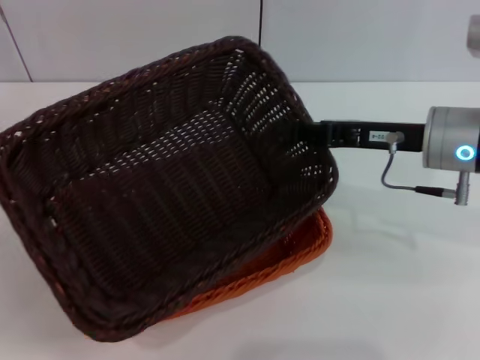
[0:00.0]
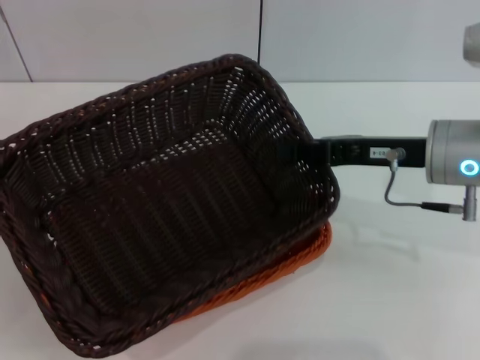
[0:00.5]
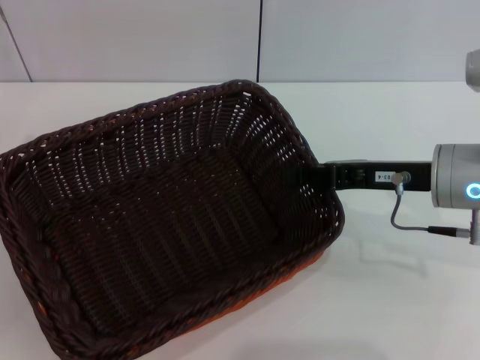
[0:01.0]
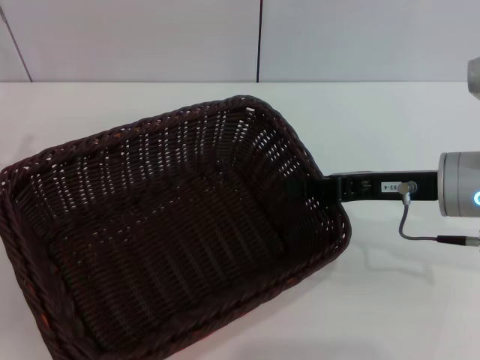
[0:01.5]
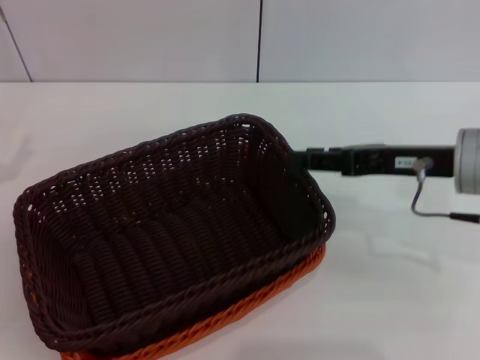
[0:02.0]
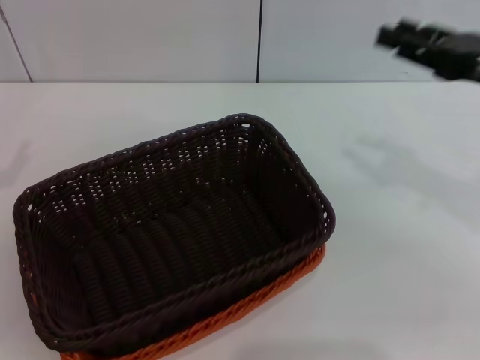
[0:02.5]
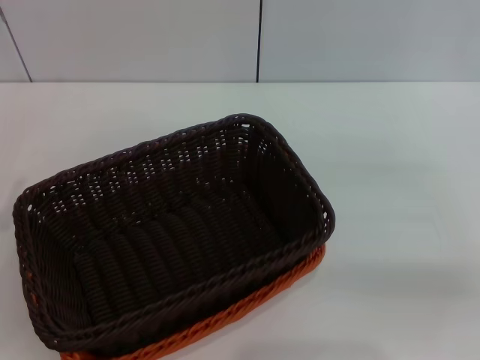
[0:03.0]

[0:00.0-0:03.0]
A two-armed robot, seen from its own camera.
0:01.5 to 0:03.0: The right gripper shifts roughly 15 cm to the right, and opens up, while the left gripper goes approximately 5 cm backward.
